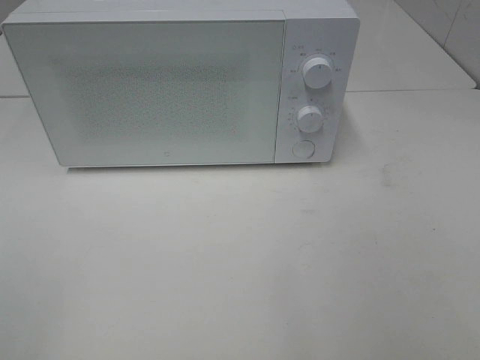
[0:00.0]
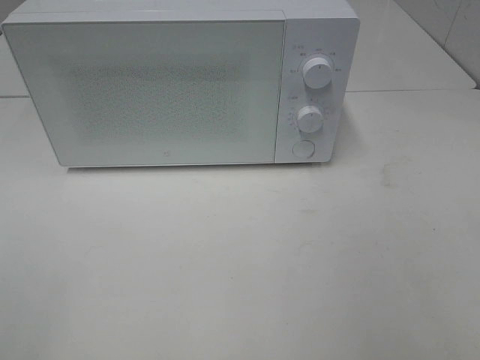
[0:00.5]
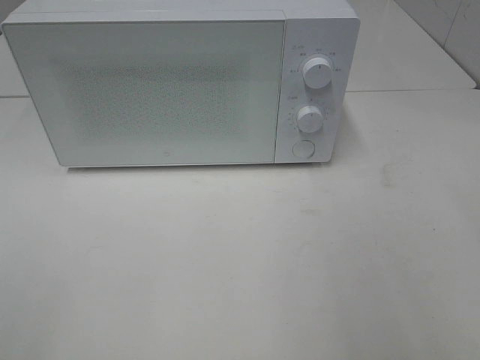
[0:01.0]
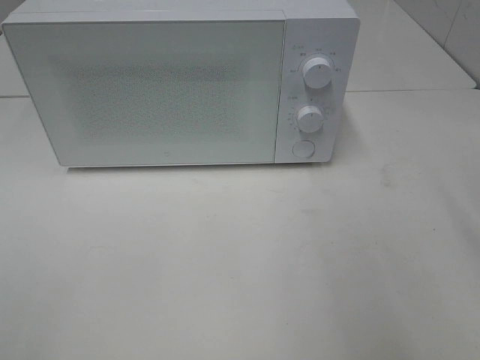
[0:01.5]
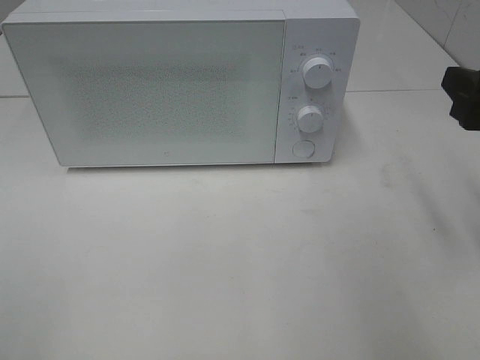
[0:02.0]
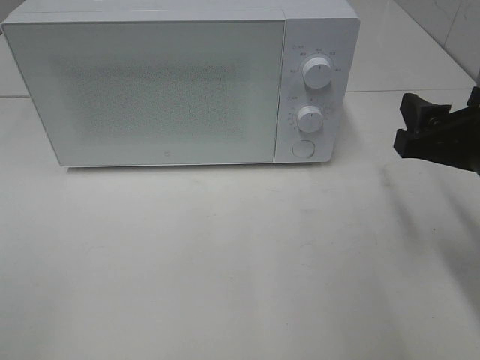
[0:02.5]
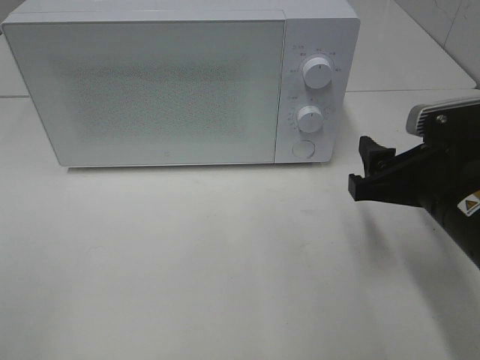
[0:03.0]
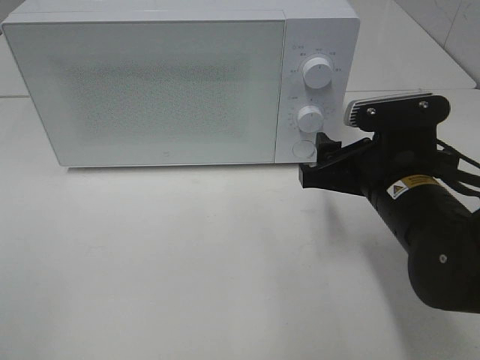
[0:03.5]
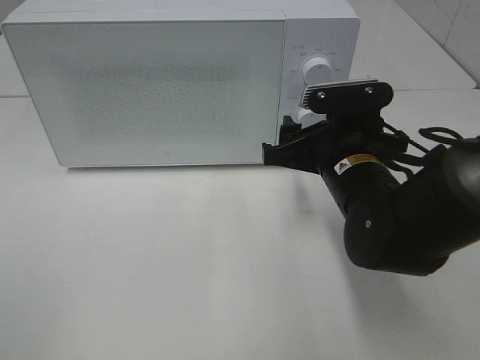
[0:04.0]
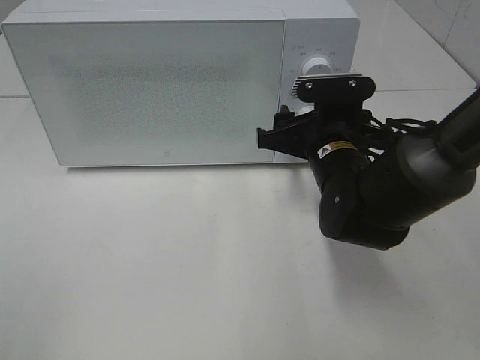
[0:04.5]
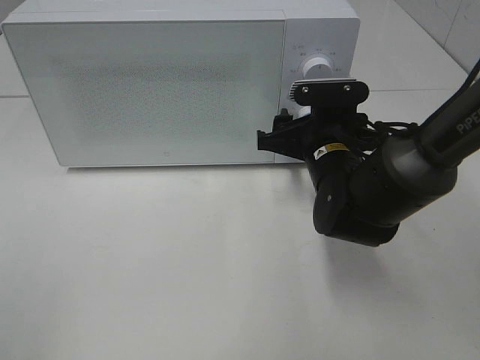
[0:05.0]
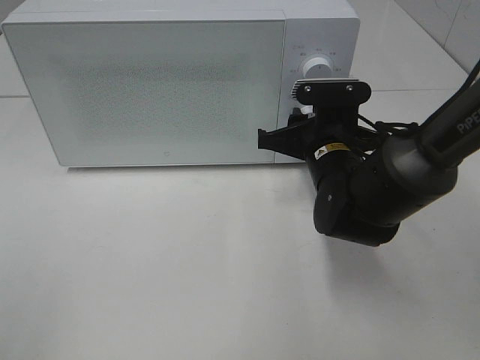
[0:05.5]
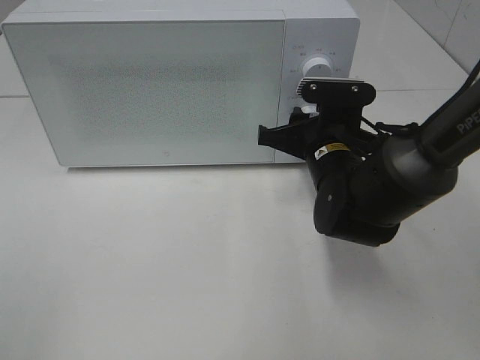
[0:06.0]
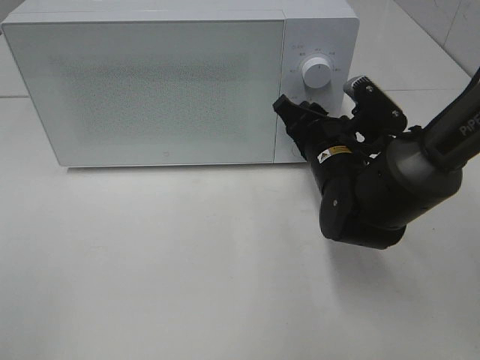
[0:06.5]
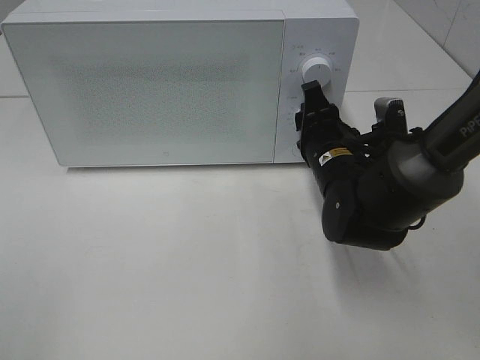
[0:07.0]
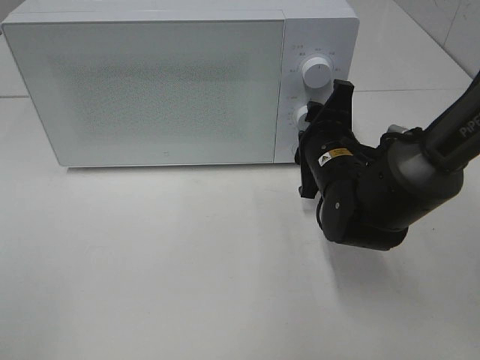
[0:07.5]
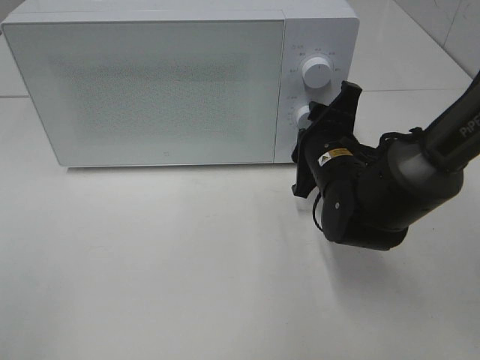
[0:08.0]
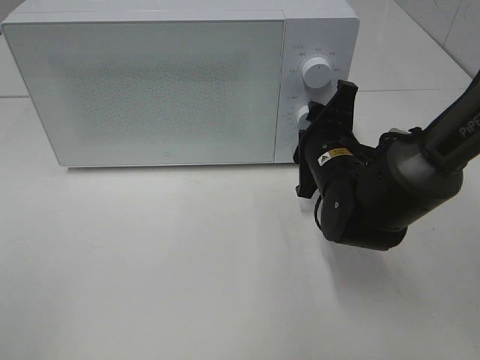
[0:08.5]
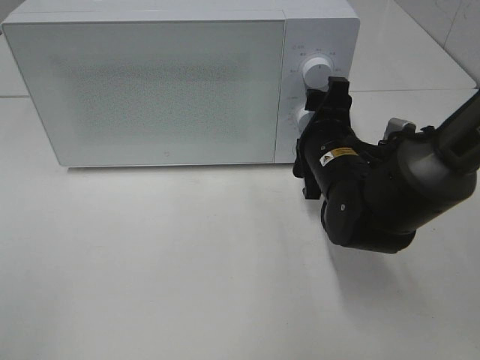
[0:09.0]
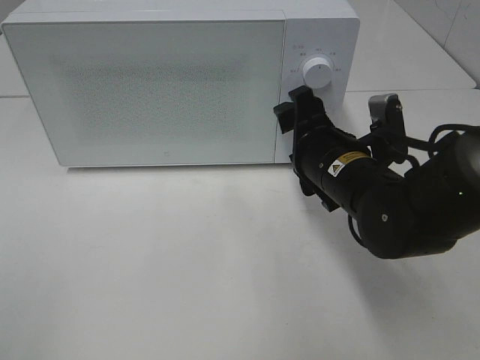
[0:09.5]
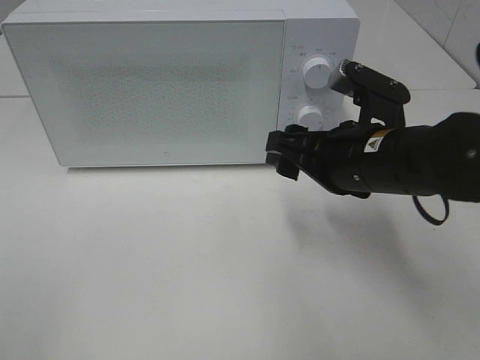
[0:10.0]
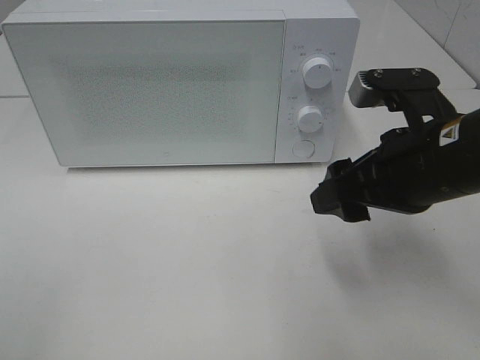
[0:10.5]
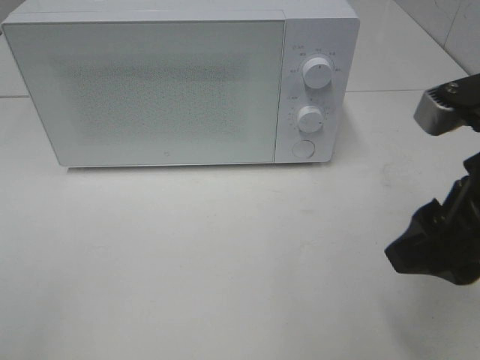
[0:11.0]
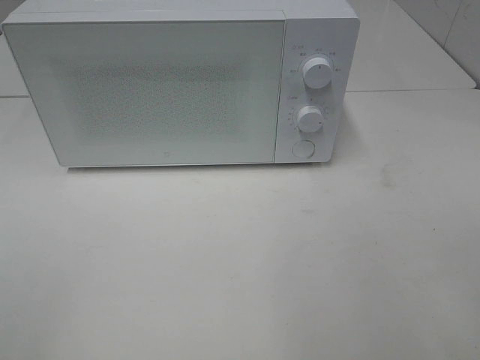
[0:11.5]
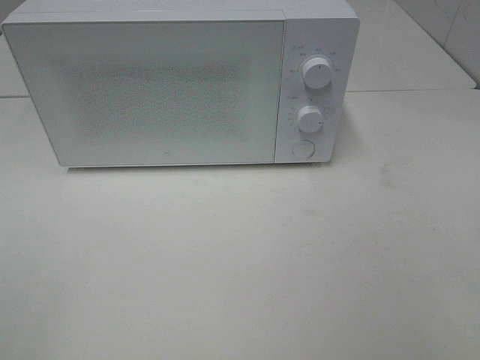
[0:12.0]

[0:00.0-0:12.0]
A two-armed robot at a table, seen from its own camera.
Task of the whole recording: Heat the burger.
Step, 0.0 to 8.5 s: Right hand: twist timer button.
0.0 to 2.0 s: The right gripper is displaced forward by some 20 cm.
2.0 to 4.0 s: The right gripper moves to the left, downward and forward, approximately 20 cm.
4.0 to 6.0 s: The right gripper changes place by roughly 5 cm, and closes.
8.0 to 10.0 s: The right gripper moves backward and upward, some 10 cm, and opens.
10.0 to 12.0 s: The right gripper goes approximately 30 cm backward, to the right and upward.

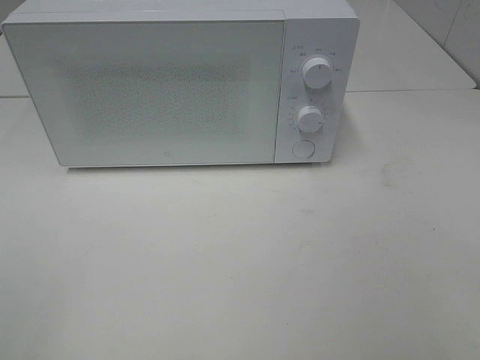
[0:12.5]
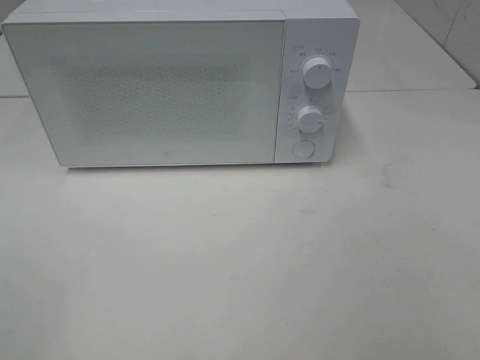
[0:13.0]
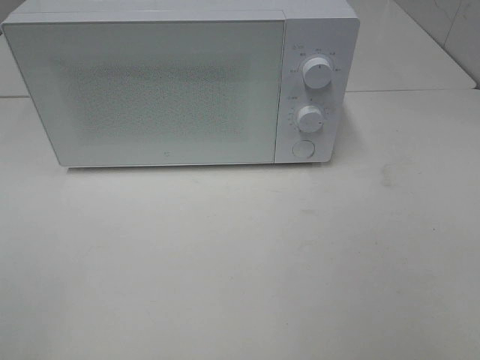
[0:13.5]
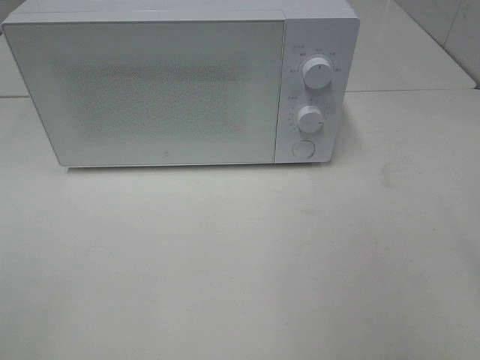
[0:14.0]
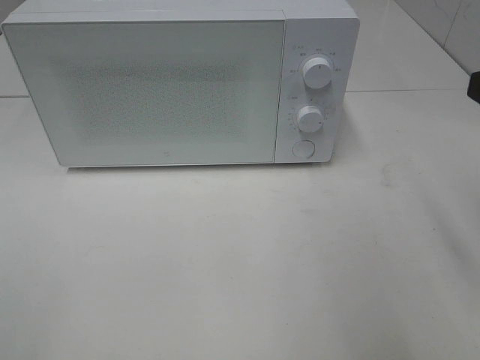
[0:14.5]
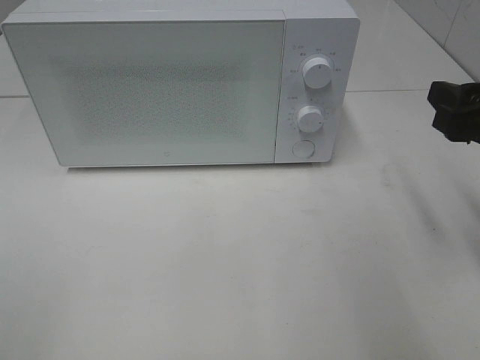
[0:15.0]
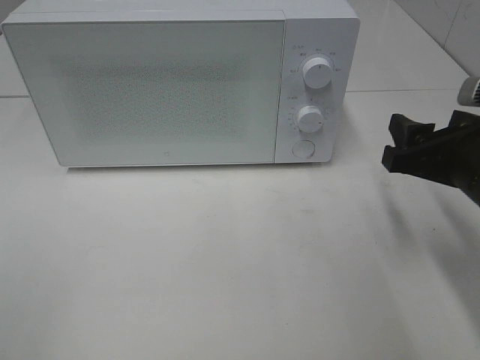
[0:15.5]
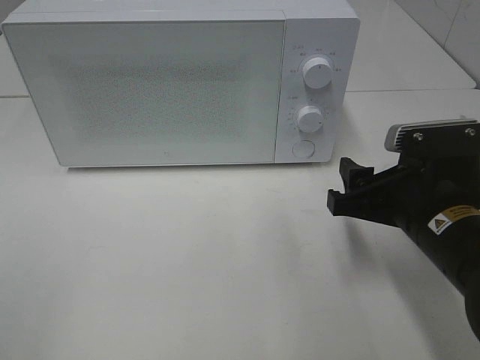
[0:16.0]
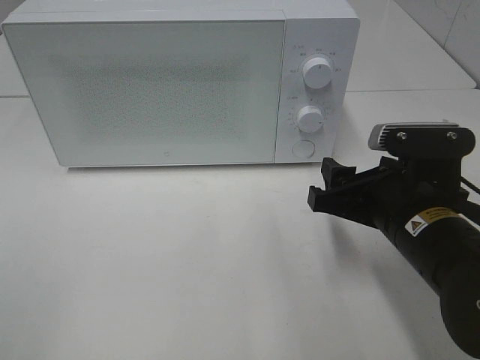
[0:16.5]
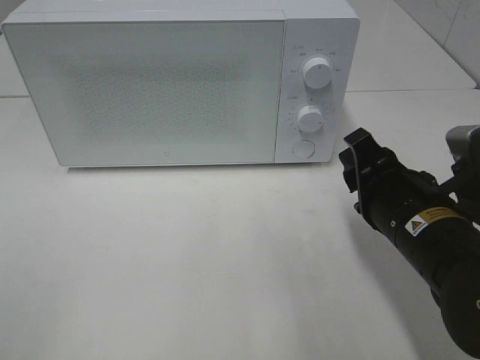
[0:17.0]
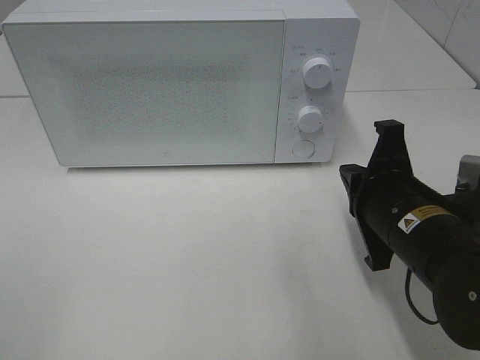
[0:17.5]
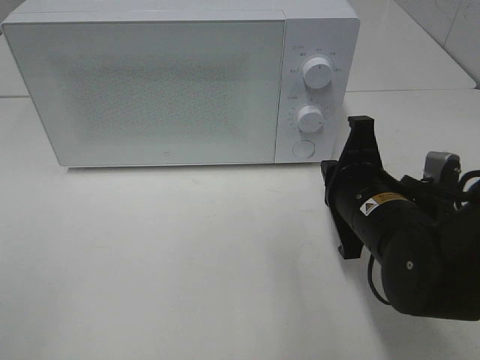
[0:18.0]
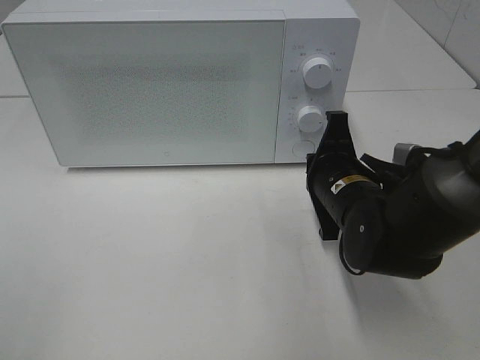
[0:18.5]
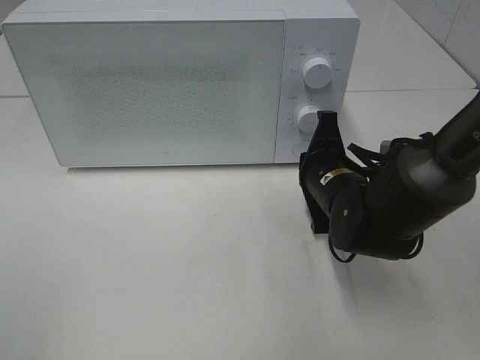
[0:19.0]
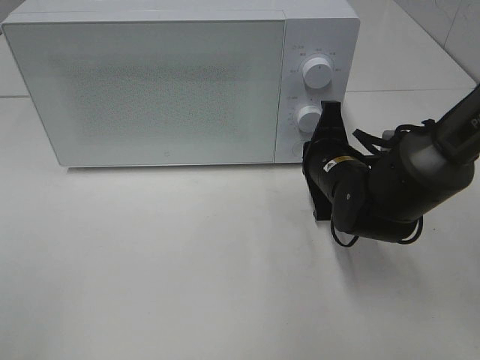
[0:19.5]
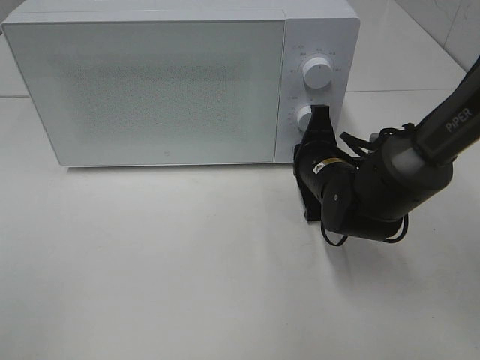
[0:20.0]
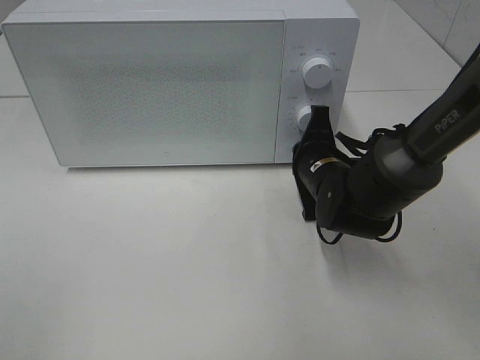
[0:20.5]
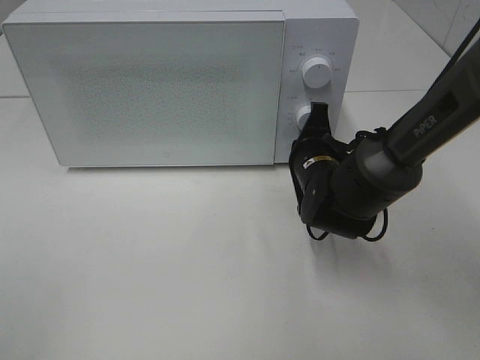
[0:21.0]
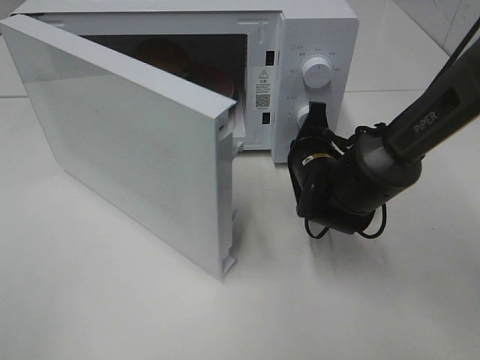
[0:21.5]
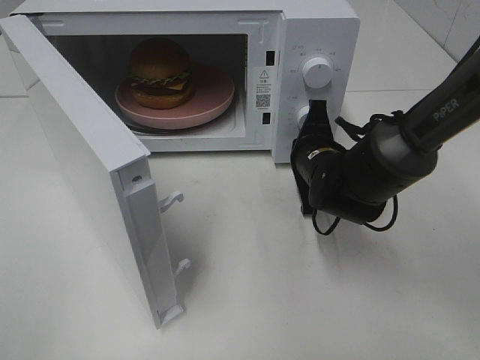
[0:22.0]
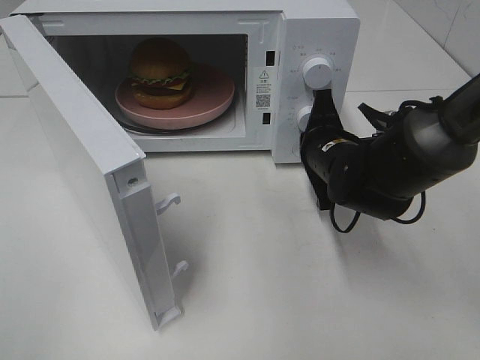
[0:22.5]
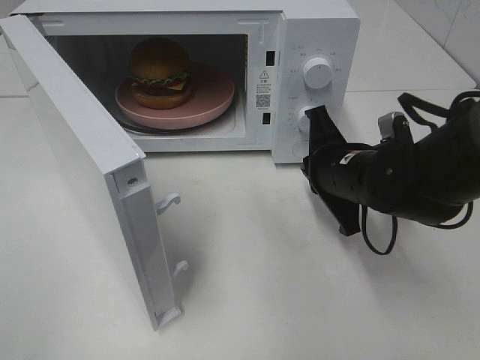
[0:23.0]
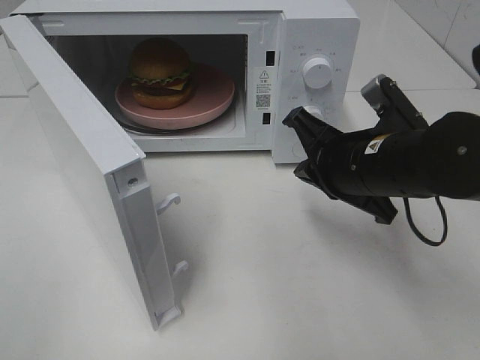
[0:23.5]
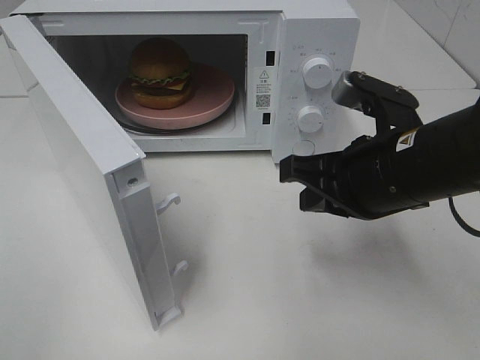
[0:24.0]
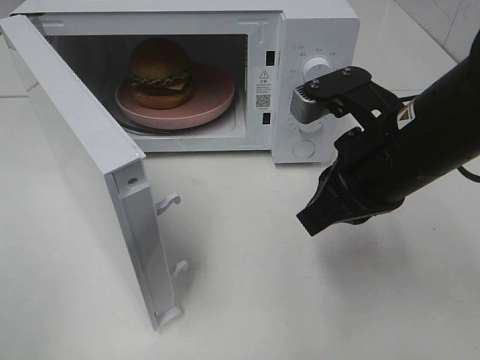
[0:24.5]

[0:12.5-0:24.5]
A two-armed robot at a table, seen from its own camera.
Task of the whole recording: Heat the burger.
Step, 12.5 to 22.5 s: Right hand: press the switch.
14.5 to 16.5 s: The right gripper shifts roughly 15 cm downward and to the left.
16.5 to 18.5 s: The right gripper is displaced forward by approximately 5 cm, and closes its fingers.
18.5 to 20.5 s: The right gripper travels forward by approximately 5 cm.
22.5 to 24.5 s: The right gripper is displaced upward and backward by approximately 15 cm.

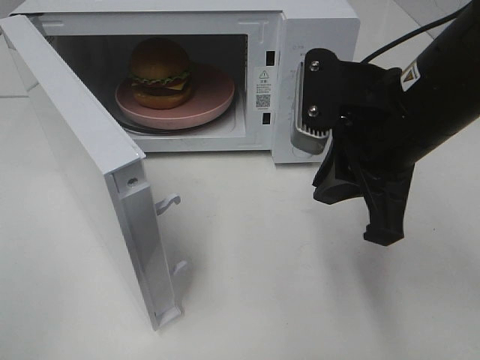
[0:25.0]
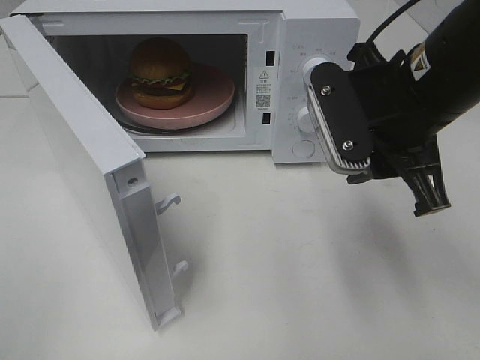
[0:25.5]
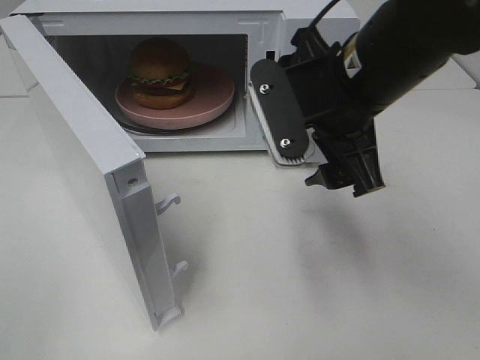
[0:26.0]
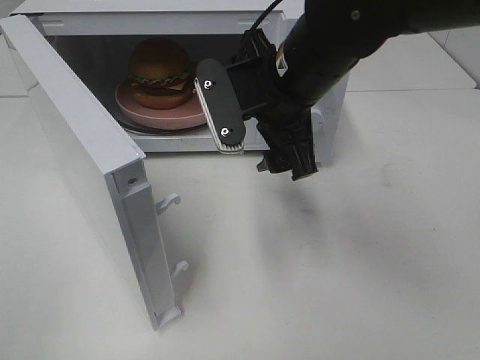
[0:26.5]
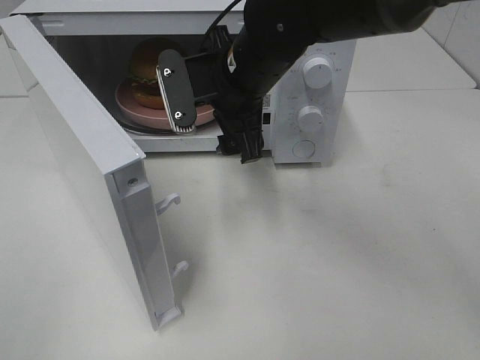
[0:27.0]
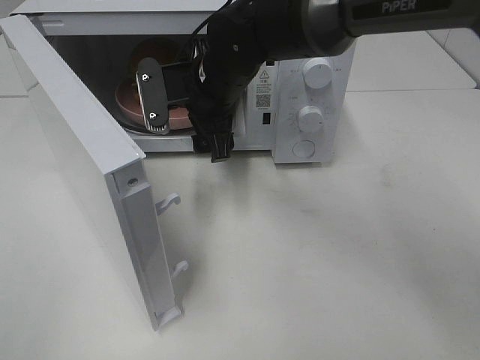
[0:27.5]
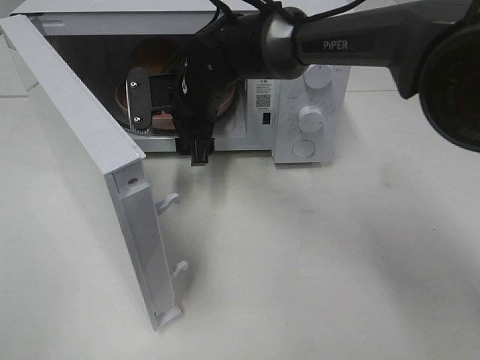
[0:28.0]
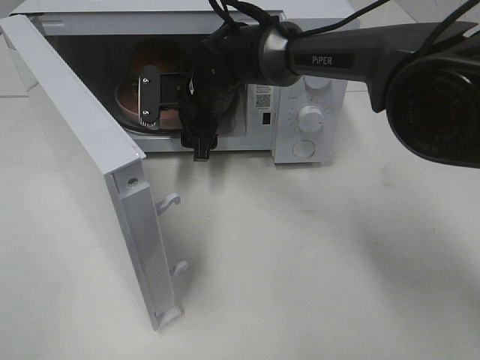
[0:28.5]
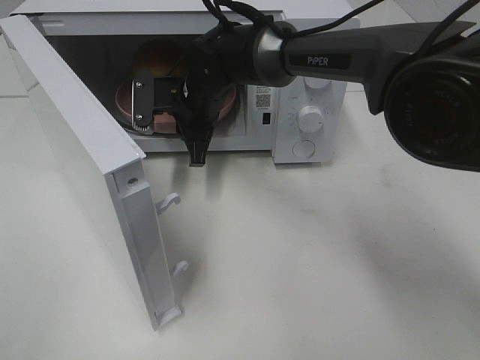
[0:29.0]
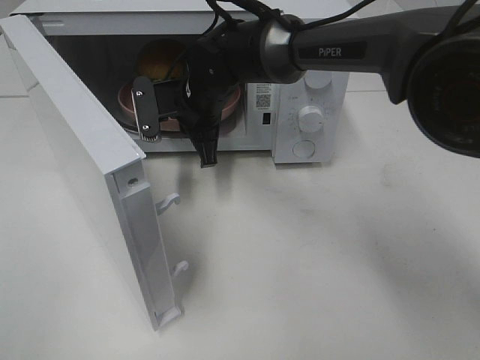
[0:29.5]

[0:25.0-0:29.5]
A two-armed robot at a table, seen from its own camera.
Task of the whole recording: Heat the burger.
Step, 25.0 to 29.0 s: Right hand: grab the plate with the hamburger.
25.0 to 27.0 s: The right gripper shifts approximately 15 cm to the left and forward, and opens up.
27.0 to 29.5 s: The right gripper is displaced forward and downward by approximately 10 cm, and closes.
